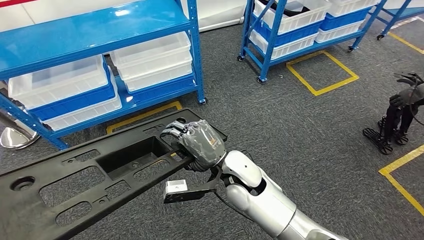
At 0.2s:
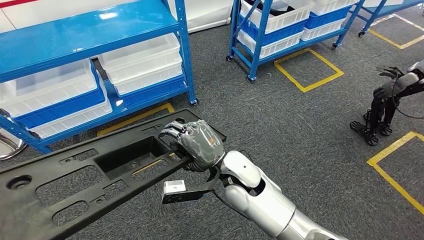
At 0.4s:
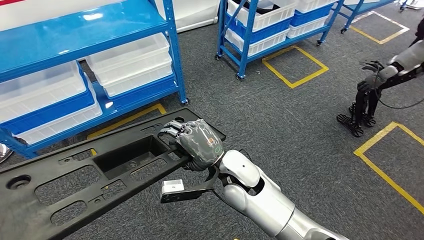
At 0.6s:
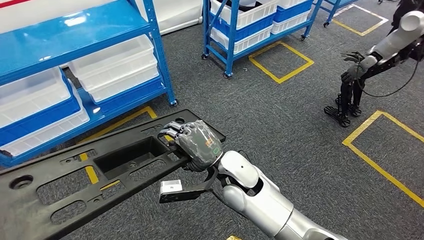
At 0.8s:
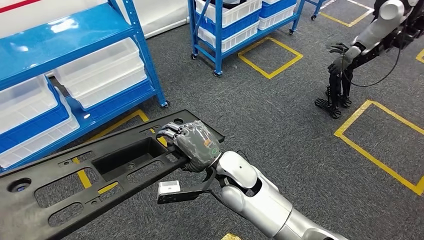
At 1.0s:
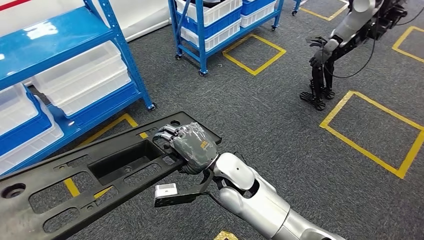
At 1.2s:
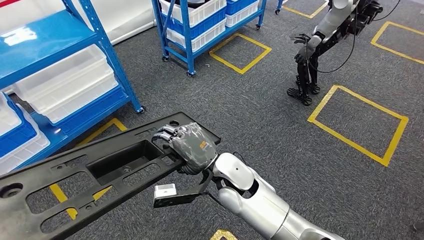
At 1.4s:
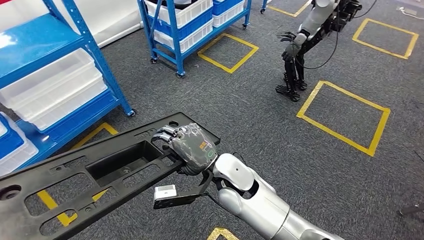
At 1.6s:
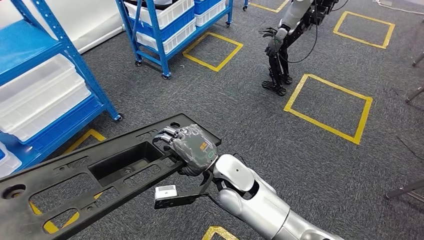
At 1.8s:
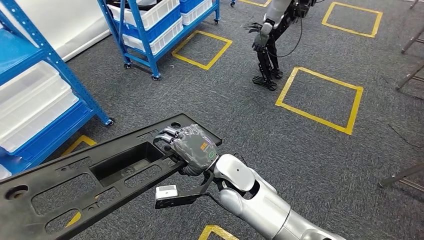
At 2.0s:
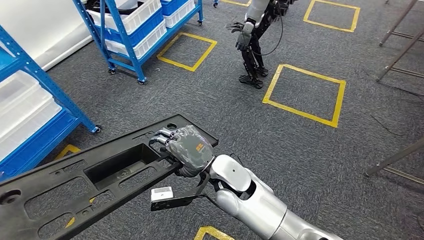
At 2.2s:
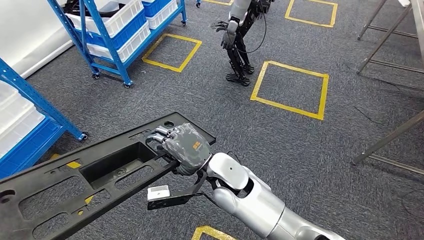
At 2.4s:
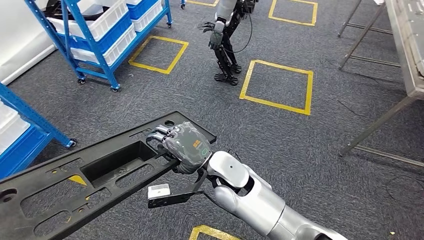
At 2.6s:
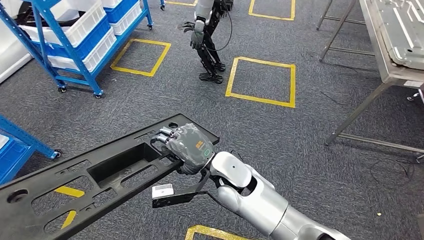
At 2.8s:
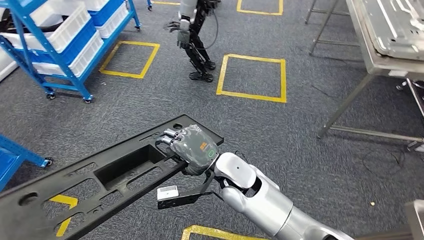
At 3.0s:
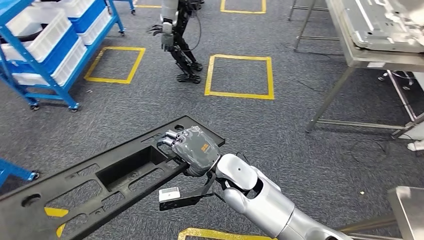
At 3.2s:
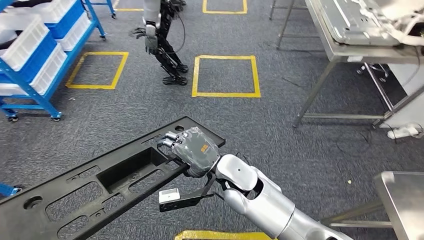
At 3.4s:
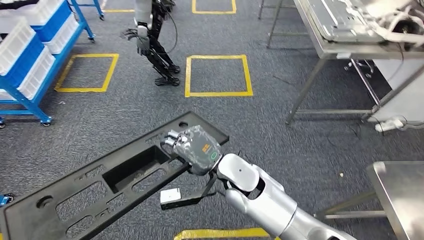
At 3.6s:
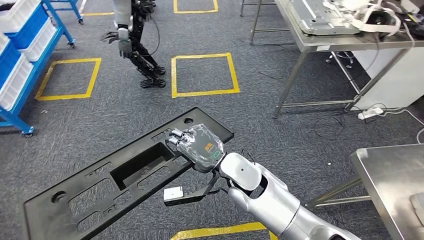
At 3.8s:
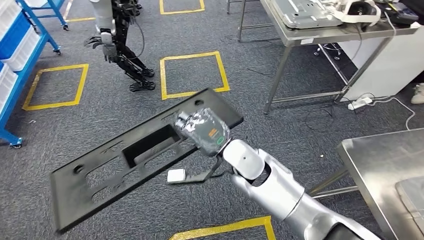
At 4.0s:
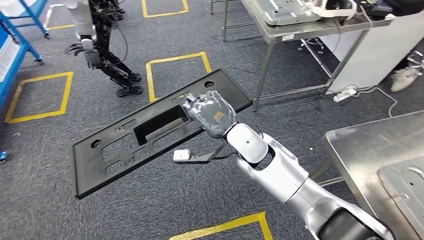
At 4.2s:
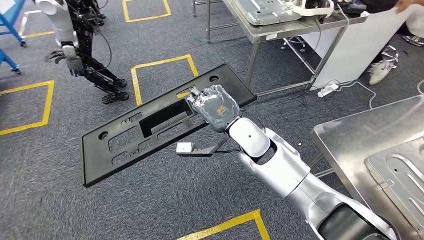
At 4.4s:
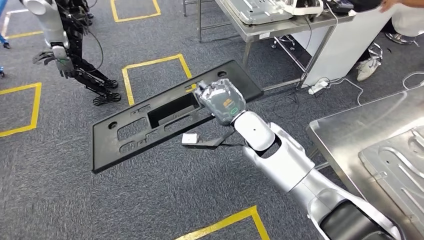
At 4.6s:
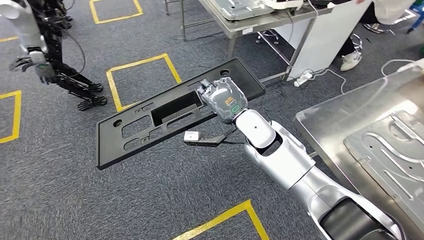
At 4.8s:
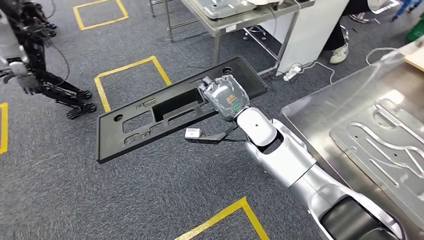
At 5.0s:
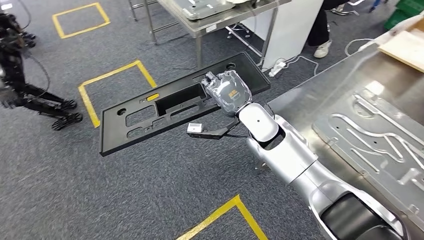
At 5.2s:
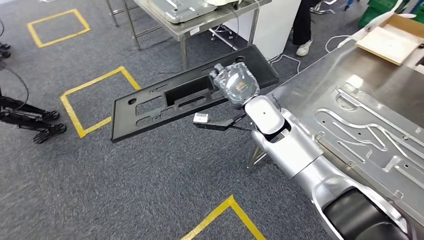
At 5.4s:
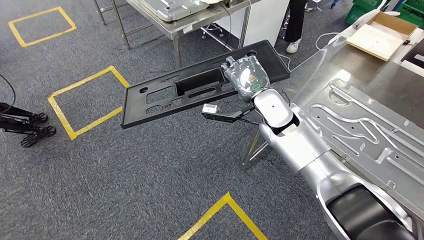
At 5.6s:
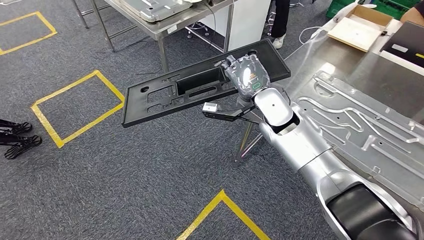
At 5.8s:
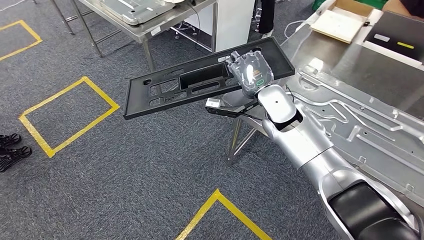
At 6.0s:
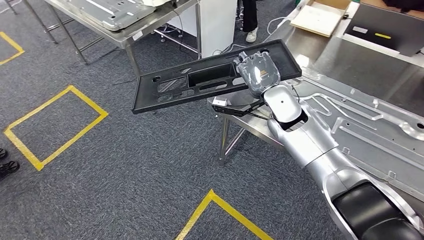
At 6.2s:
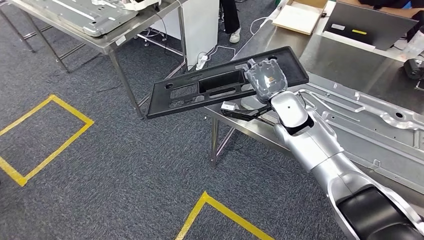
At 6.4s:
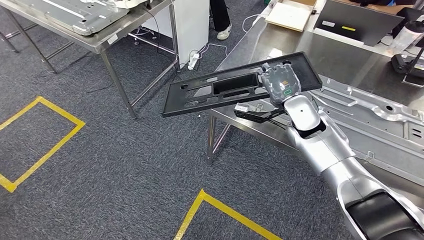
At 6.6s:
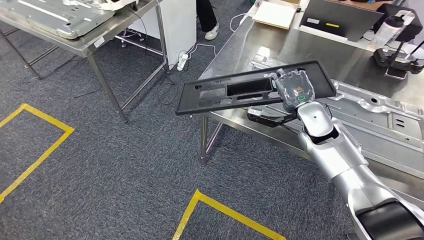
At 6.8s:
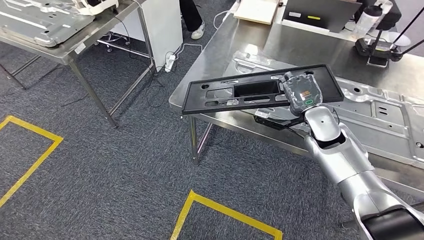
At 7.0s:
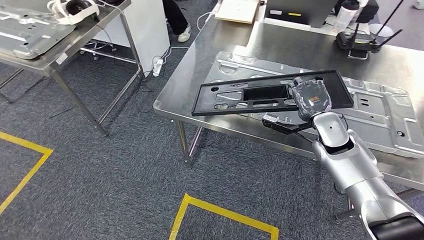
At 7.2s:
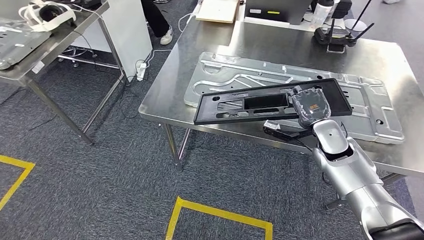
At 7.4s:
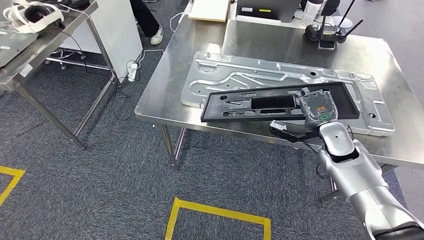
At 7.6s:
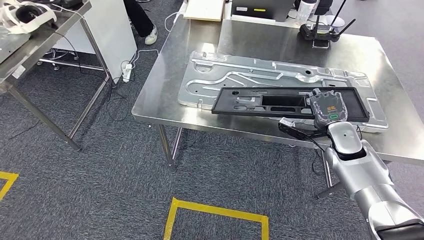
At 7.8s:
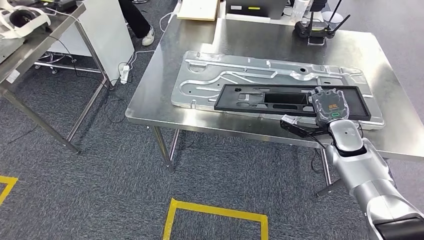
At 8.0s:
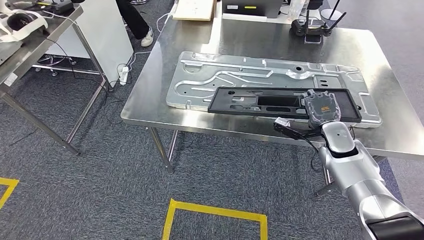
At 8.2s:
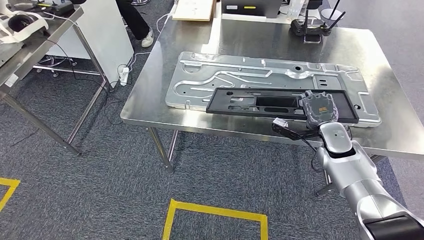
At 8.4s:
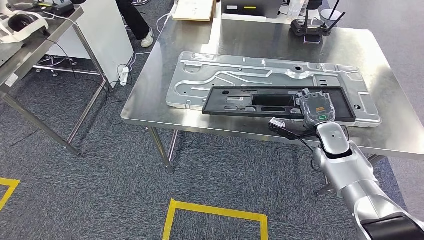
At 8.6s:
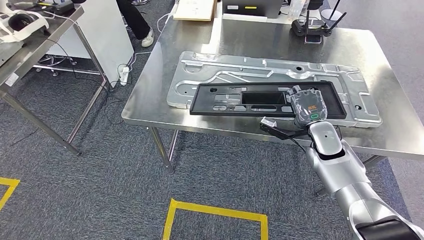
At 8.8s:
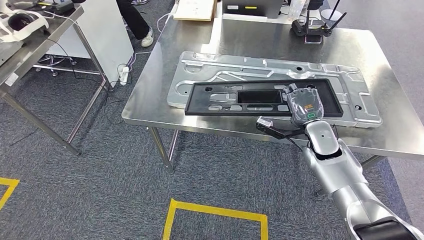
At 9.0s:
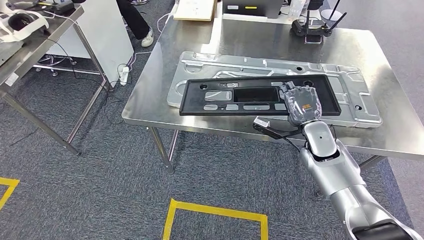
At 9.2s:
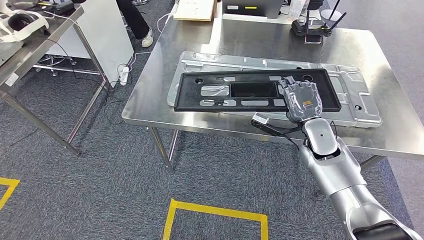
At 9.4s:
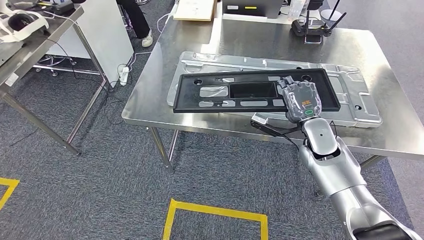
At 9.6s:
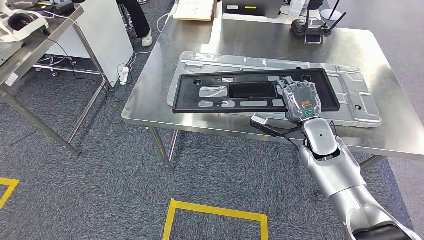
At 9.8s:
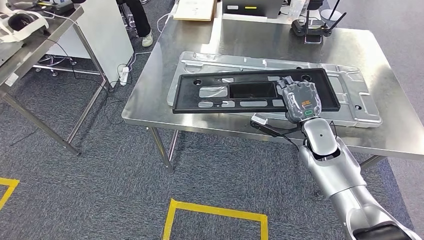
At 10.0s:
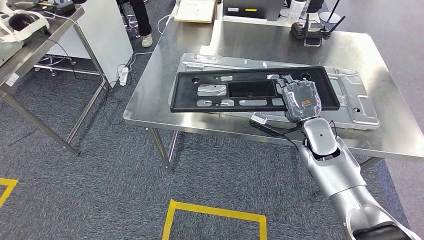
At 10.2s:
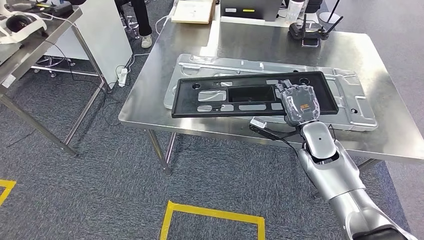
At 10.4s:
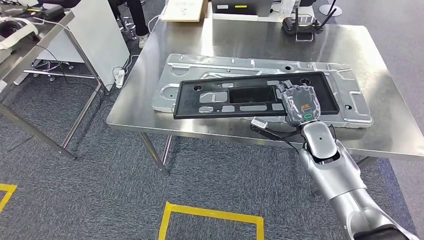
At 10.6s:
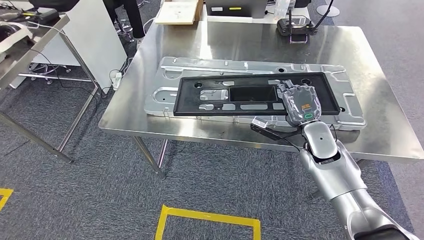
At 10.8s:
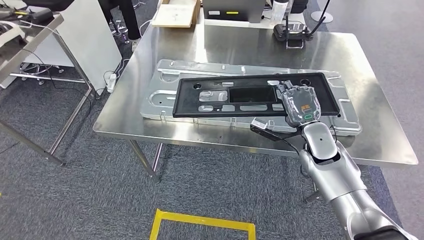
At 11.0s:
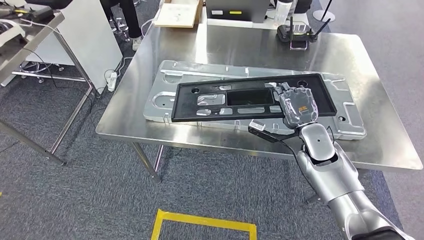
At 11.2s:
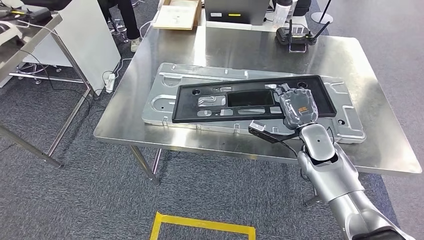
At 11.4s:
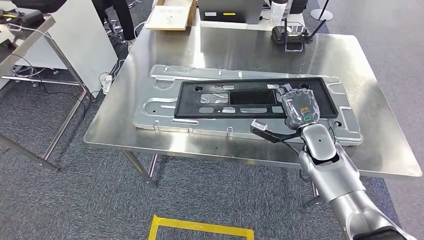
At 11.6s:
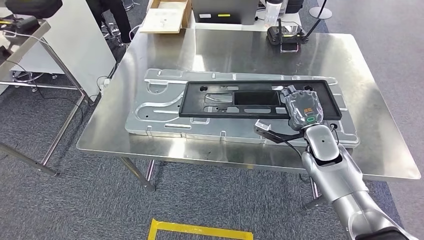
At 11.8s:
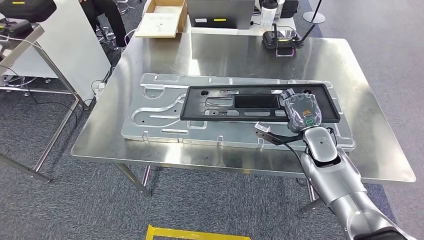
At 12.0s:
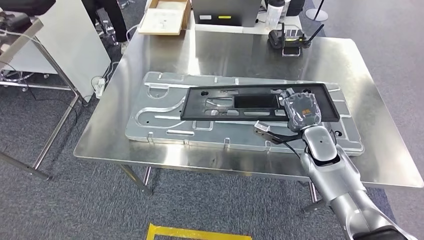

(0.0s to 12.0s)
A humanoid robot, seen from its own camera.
Step, 0.0s - 7.8s: Move the large material to the workbench.

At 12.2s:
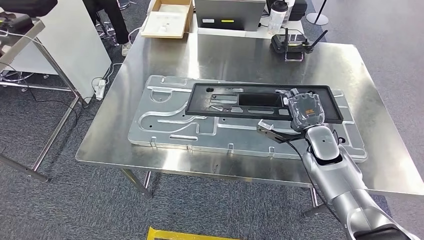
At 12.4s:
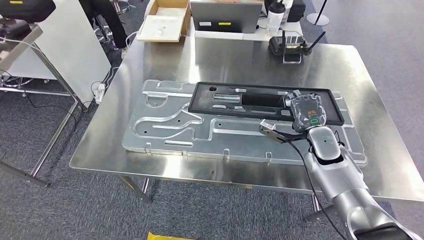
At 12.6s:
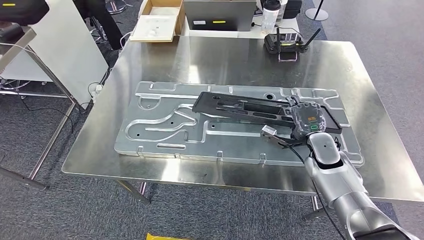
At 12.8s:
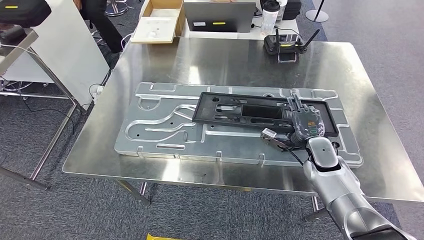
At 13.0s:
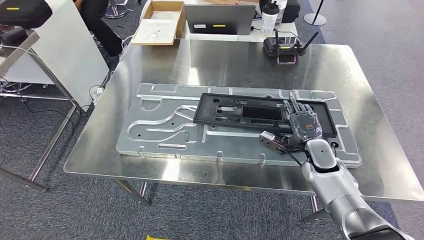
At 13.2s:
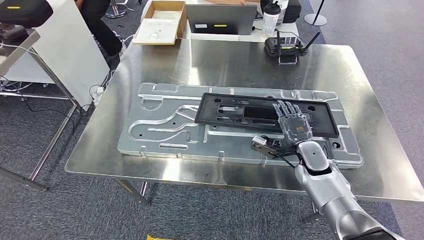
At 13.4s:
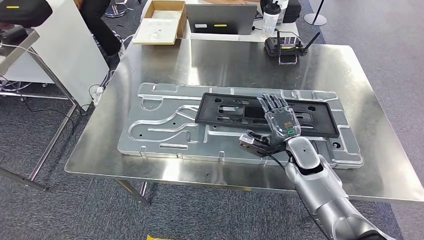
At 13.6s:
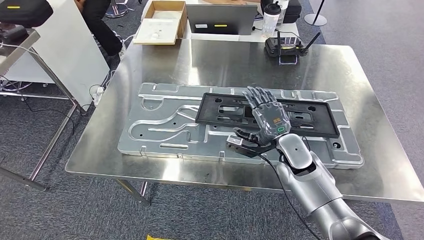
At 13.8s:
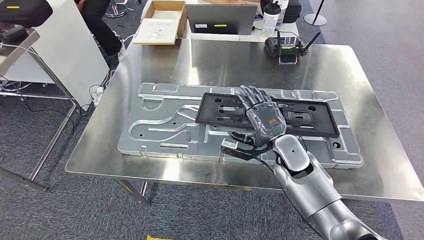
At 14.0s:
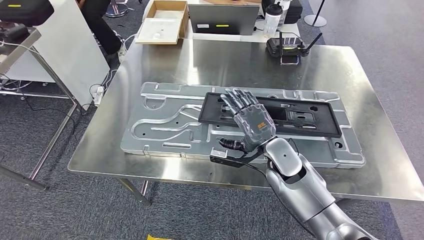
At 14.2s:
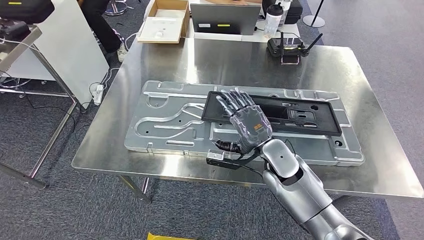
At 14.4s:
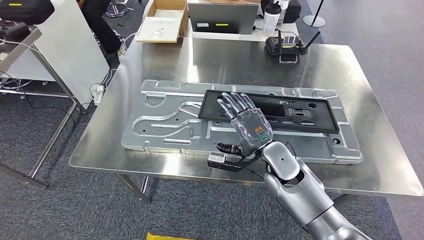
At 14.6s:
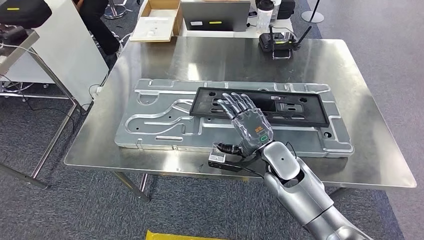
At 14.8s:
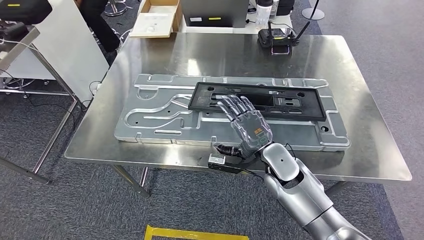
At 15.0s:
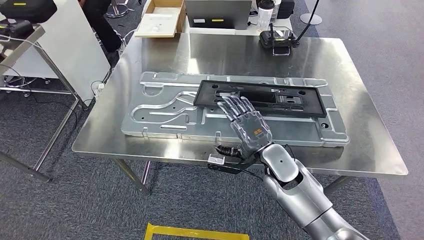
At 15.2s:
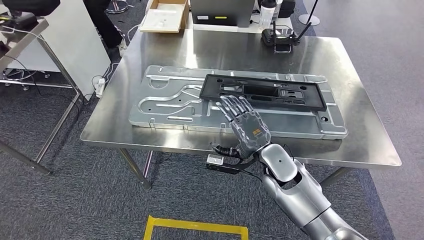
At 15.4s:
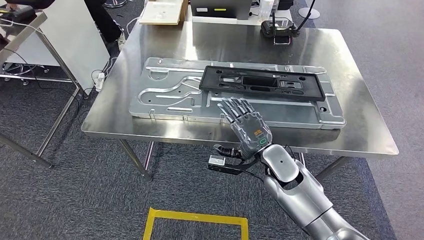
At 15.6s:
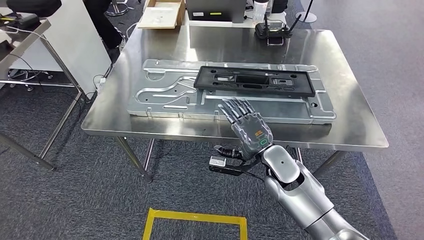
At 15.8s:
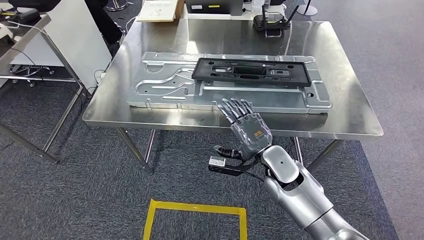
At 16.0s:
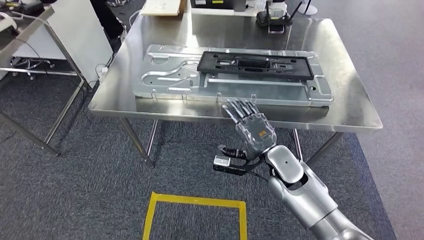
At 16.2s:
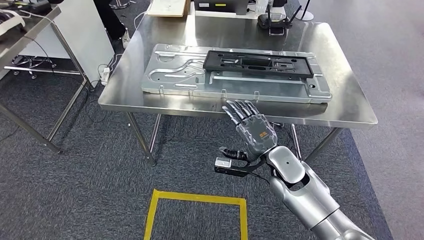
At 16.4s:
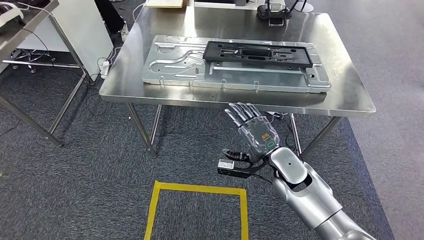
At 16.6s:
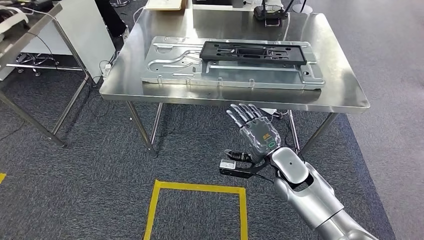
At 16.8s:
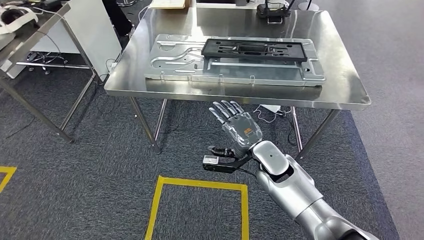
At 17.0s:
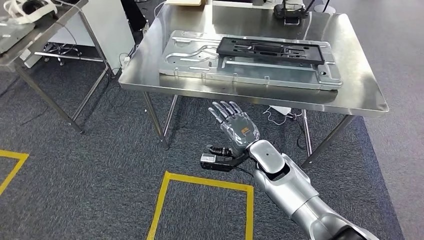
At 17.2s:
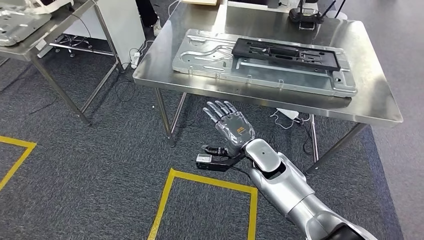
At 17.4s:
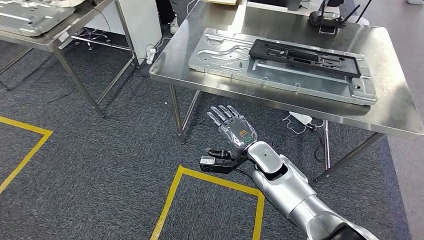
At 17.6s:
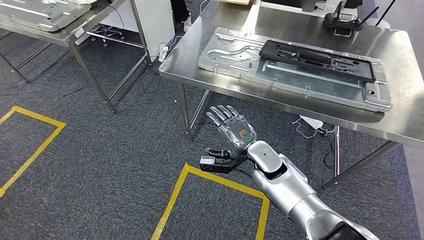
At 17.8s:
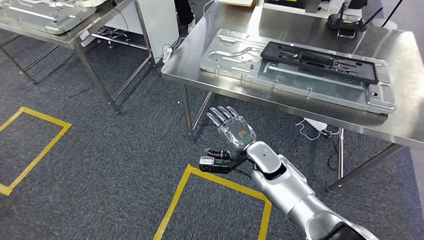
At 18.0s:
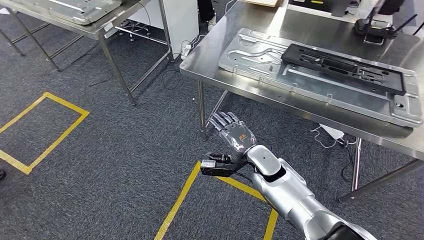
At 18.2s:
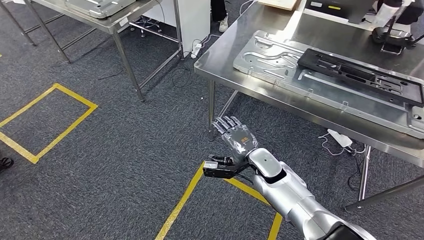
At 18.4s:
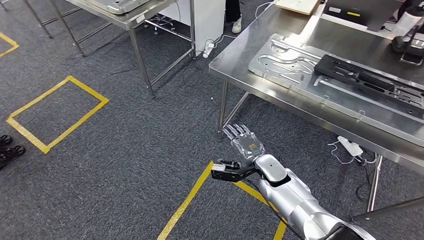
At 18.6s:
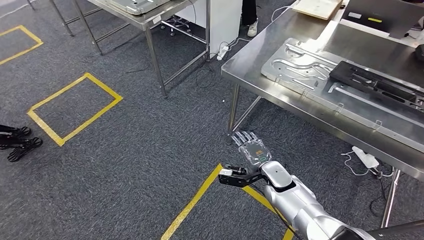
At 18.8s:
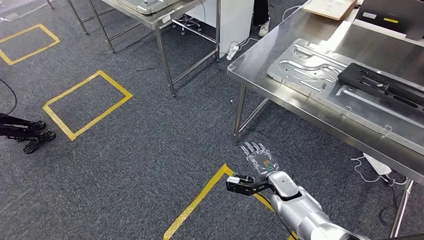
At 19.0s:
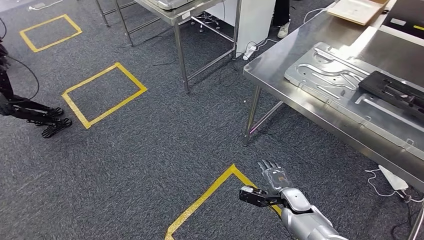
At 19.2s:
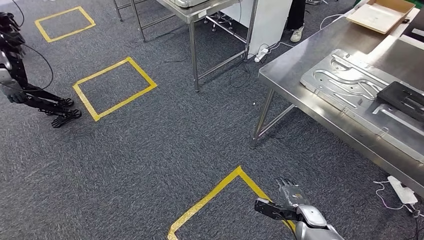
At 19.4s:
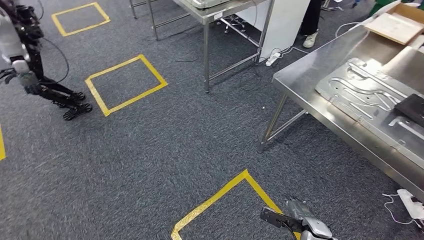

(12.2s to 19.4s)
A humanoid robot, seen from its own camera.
Step, 12.2s - 17.4s: Insert the large material into the corresponding slot on the workbench.
